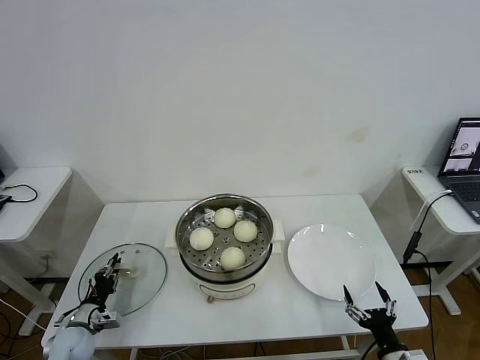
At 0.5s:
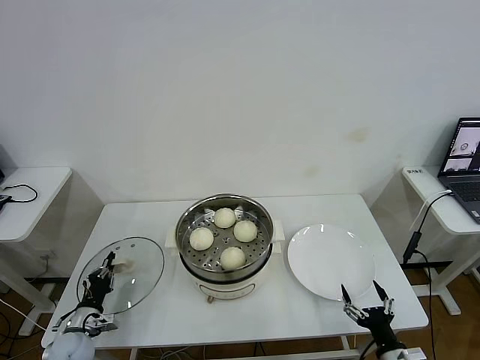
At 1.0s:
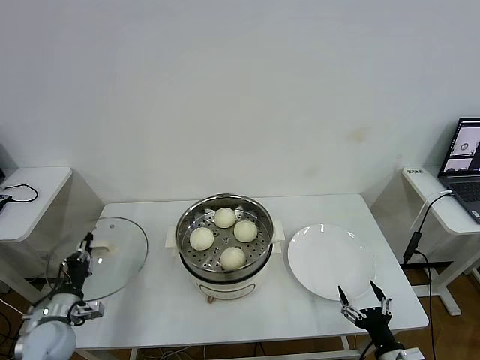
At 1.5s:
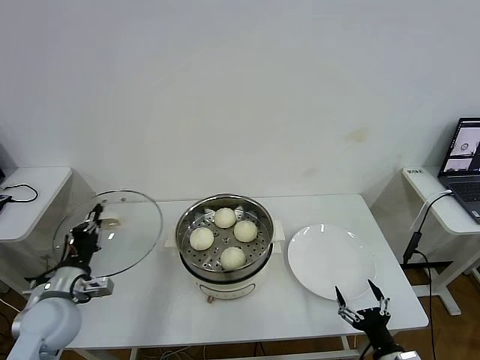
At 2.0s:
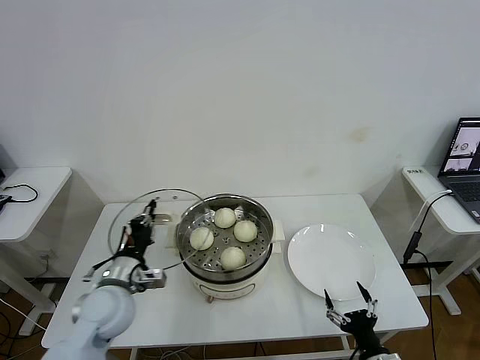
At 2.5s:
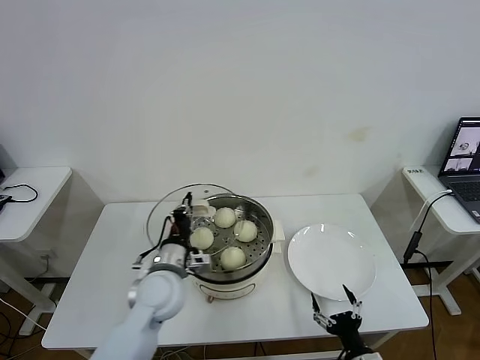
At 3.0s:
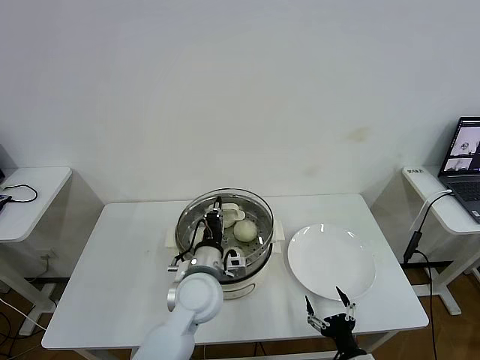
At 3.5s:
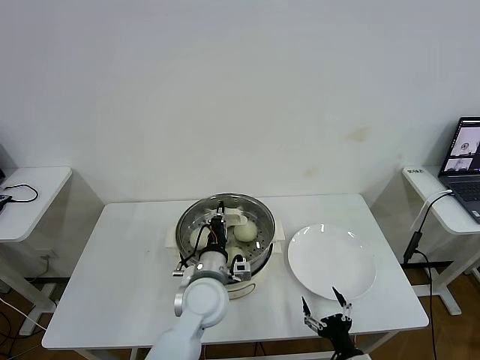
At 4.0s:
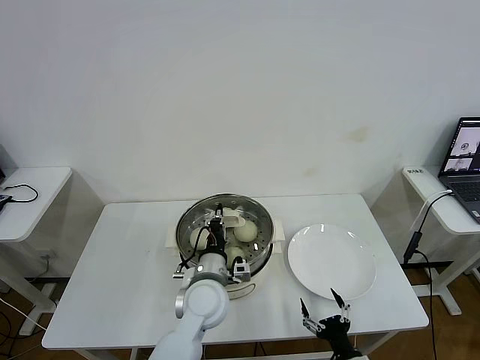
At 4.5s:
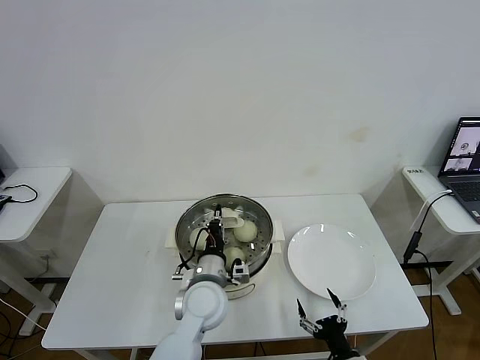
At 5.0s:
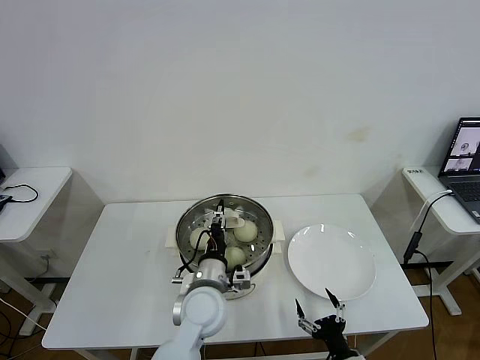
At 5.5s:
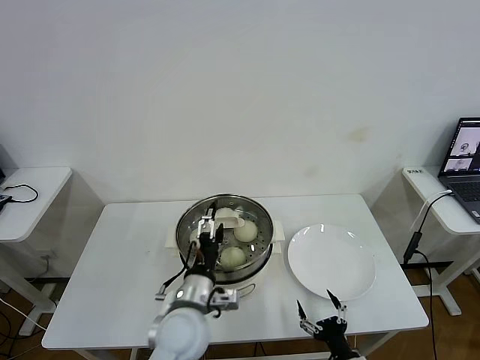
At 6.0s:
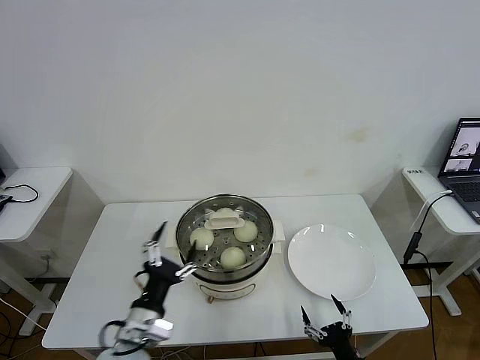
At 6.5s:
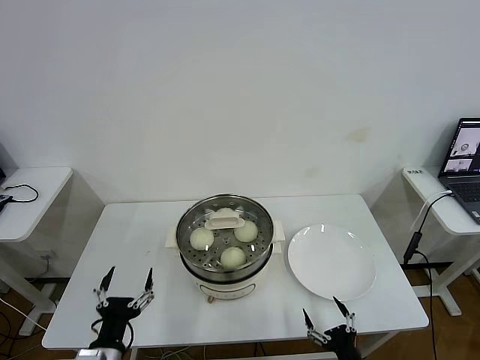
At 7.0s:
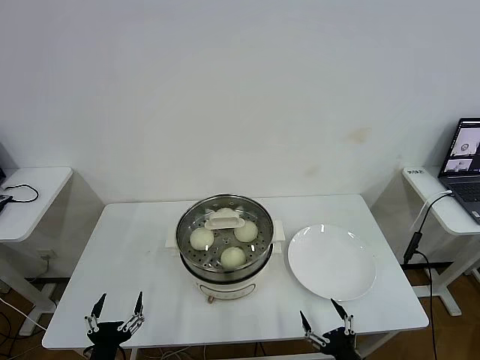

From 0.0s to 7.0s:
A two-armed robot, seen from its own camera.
Task of the whole recording: take steamed baozi put them in steamer then cover it.
Step, from 0.5s to 5.0s: Place the pot lid on the steamer with left gripper.
From 0.0s to 2.0s: The left gripper travels upward and to the right by roughly 25 cm.
From 2.0s to 3.5s: The left gripper moves to the right, some 20 cm.
From 3.5s to 5.0s: The left gripper opens up.
From 5.0s to 7.0s: The right gripper changes place by some 5 cm. The left gripper heads to the left and backward, covering about 30 cm, and opens its fingers.

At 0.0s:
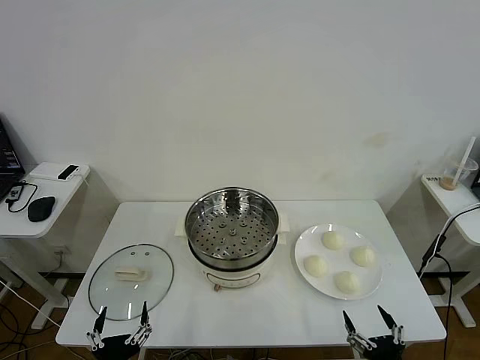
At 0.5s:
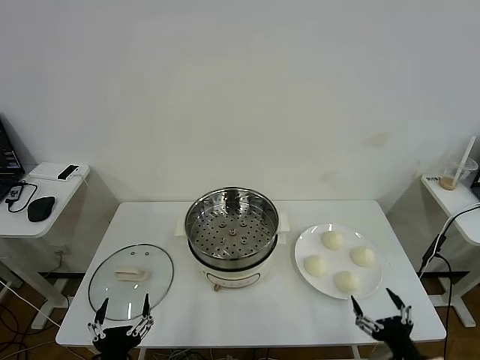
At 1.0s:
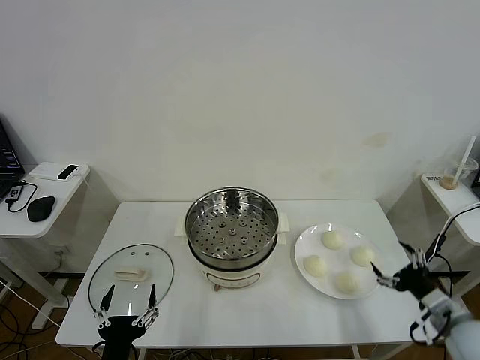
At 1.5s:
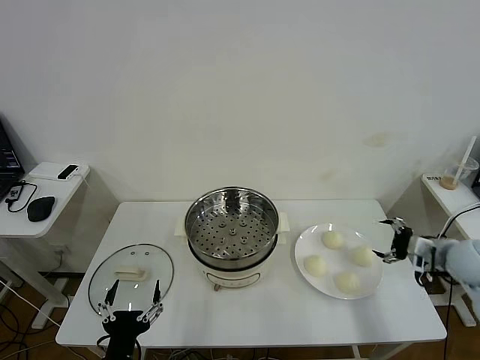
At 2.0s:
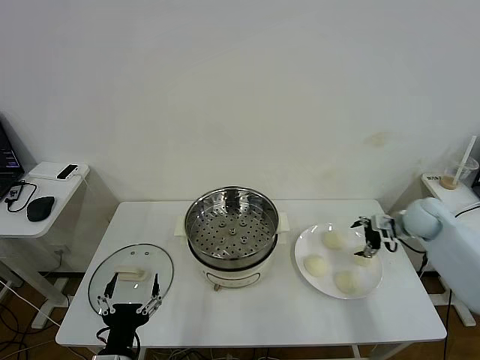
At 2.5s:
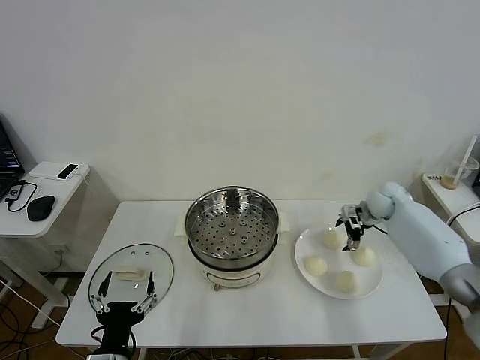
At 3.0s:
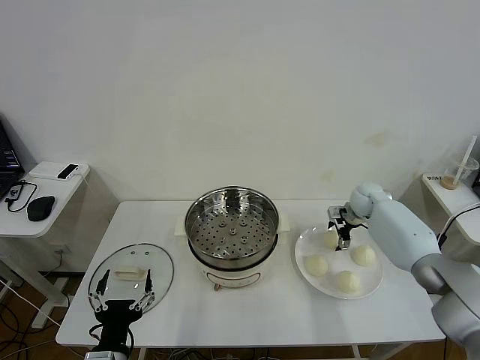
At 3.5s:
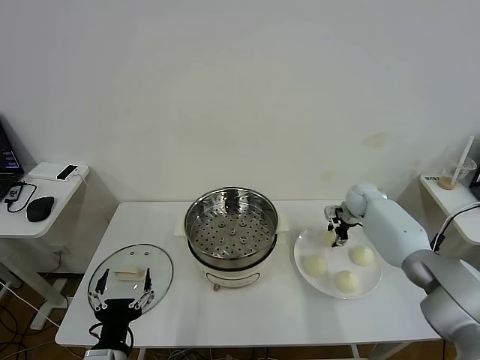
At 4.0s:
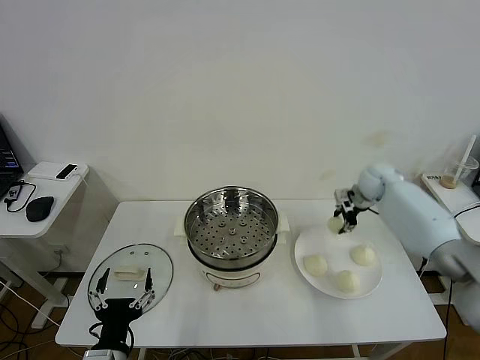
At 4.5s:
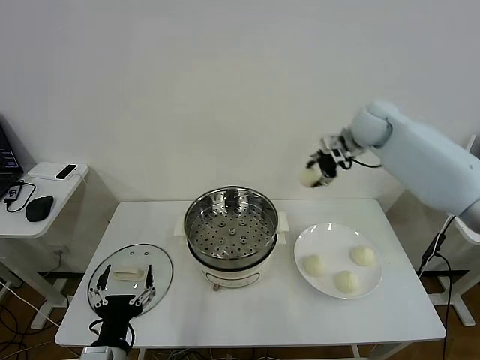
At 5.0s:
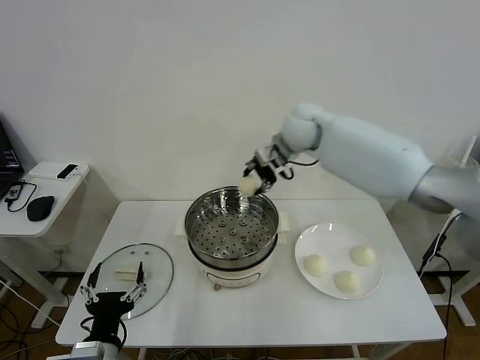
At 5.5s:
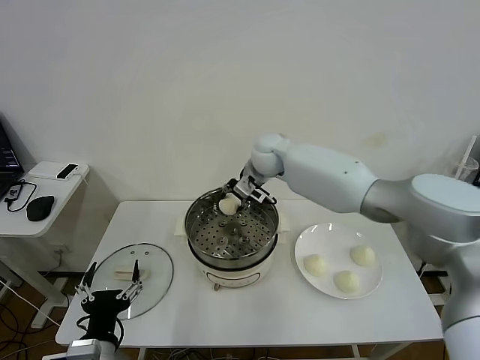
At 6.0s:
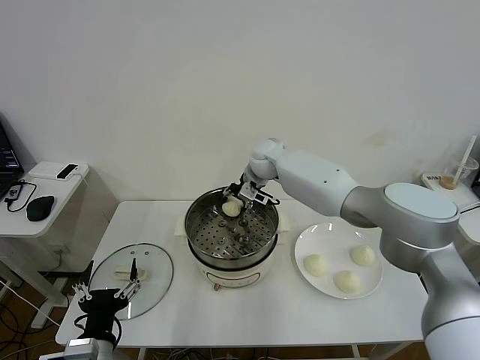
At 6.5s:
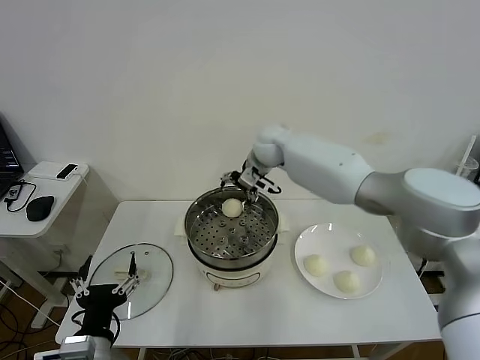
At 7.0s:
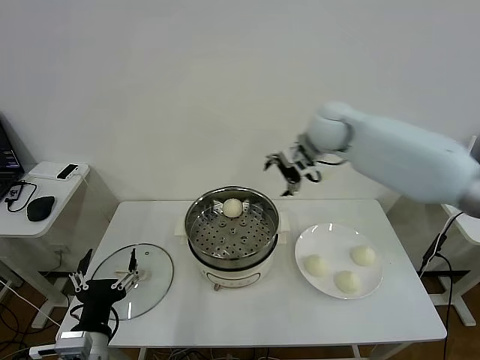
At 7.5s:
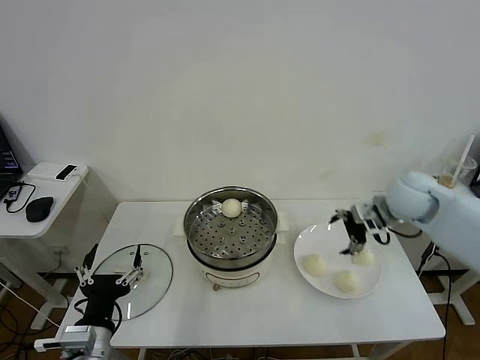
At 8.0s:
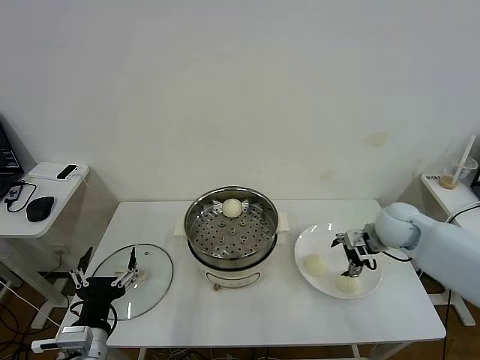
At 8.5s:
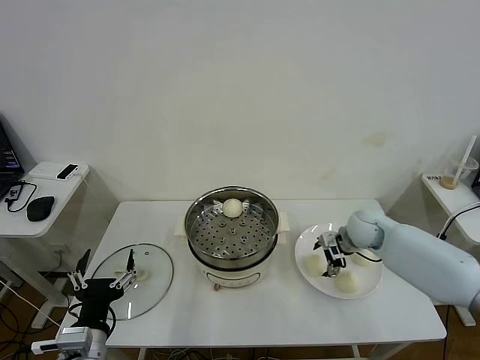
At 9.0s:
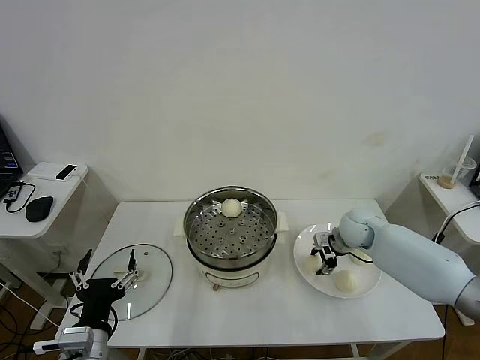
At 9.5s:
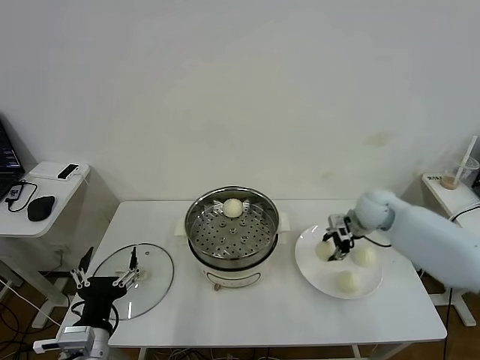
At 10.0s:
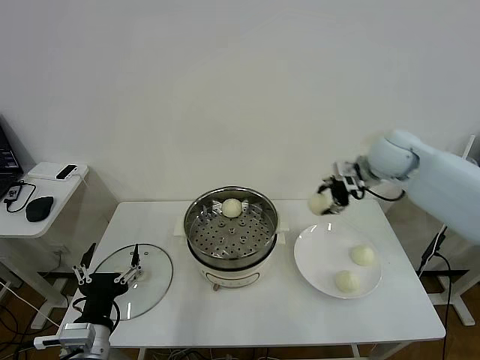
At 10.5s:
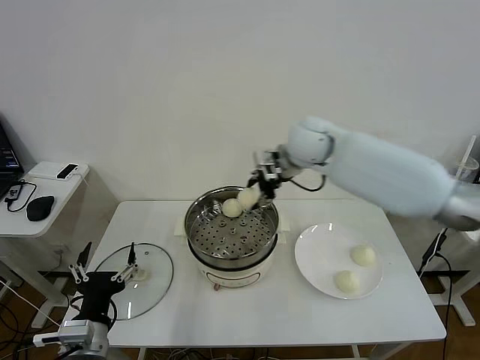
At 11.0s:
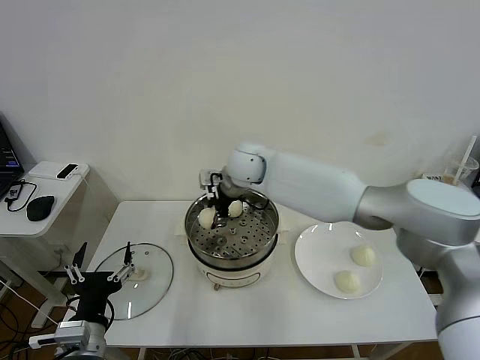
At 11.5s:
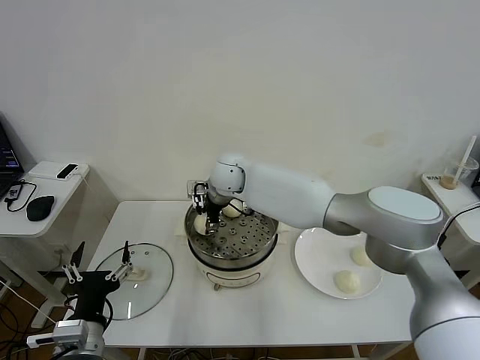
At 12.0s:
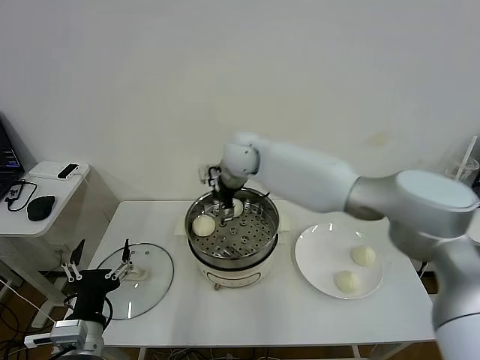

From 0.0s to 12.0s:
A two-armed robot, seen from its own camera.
Task of the whole recording: take steamed baozi put them in steamer then cover it.
Step, from 0.0s to 3.5s: Grasp the baozi in the plate with right gripper.
Step, from 4.0s to 6.0s: Place the baozi on the steamer with right gripper.
Step, from 6.5s to 9.0s: Grasp the baozi in the plate with right gripper.
Step, from 9.5s to 11.5s: Place the baozi on the steamer with right gripper.
From 2.0s to 4.0s: The right gripper travels forward, to the left and upward by approximately 15 cm, and closes.
From 4.0s to 6.0s: The right gripper goes approximately 30 cm to the left.
From 6.0s to 8.0s: The right gripper shifts approximately 30 cm to the right and backward, and opens up.
From 8.0s to 10.0s: The right gripper travels upward by some 15 cm, and closes its fingers.
From 10.0s to 12.0s: The right gripper is displaced to the left by roughly 25 cm, and opens up.

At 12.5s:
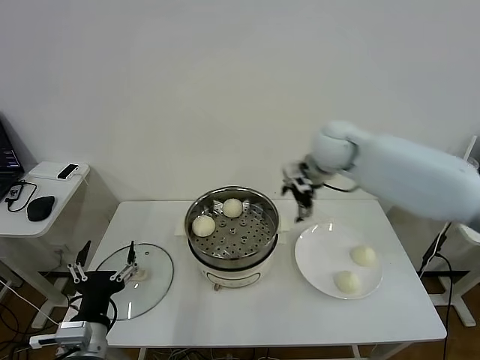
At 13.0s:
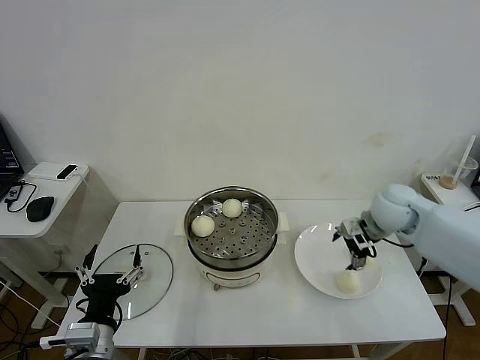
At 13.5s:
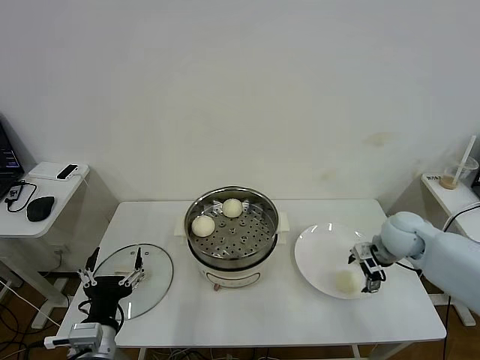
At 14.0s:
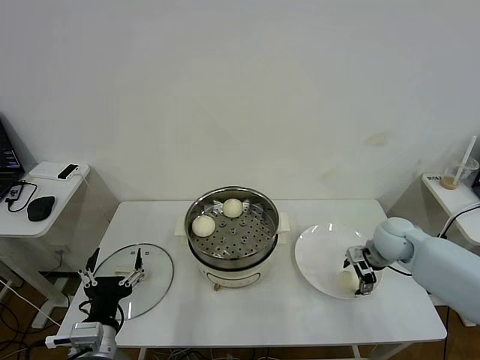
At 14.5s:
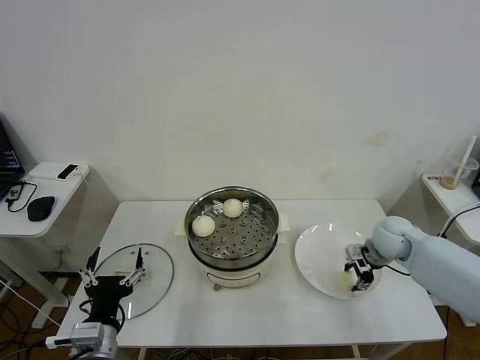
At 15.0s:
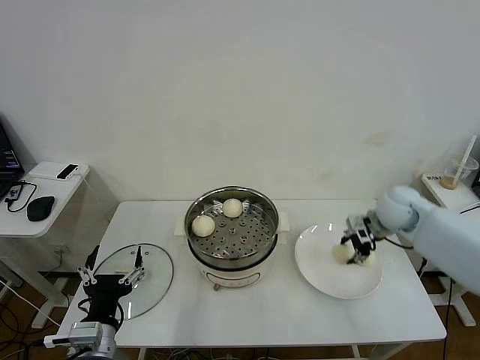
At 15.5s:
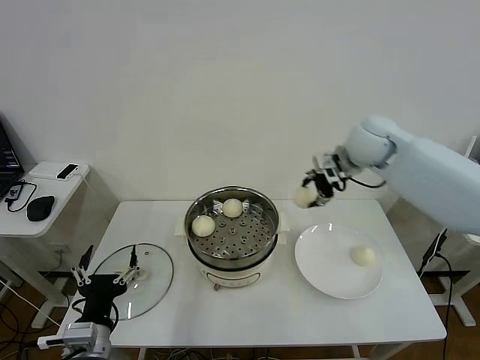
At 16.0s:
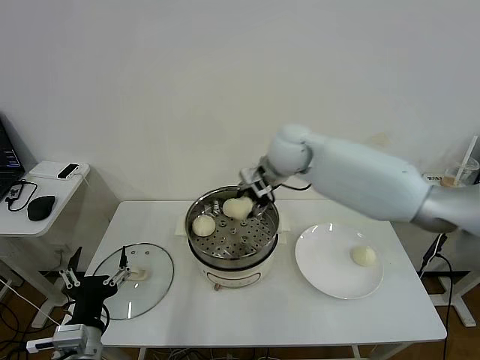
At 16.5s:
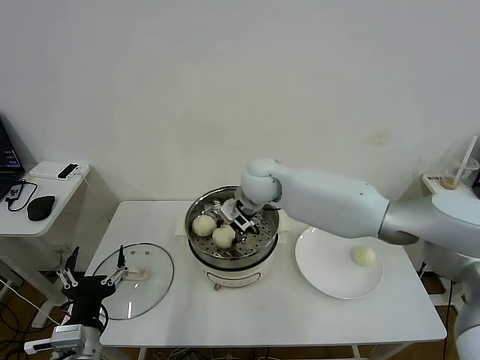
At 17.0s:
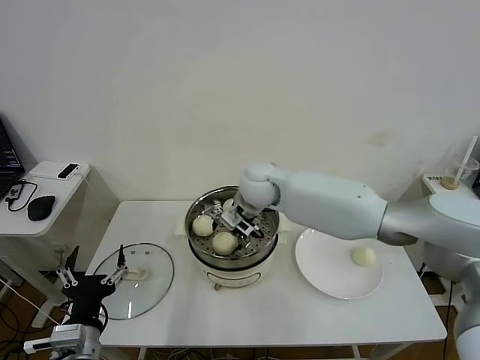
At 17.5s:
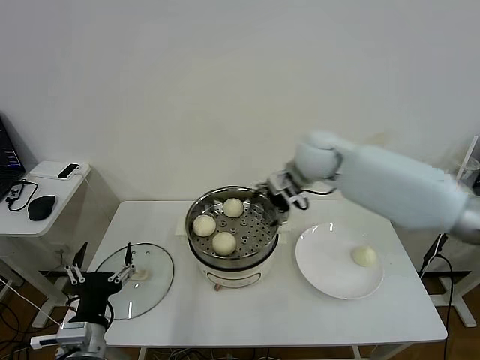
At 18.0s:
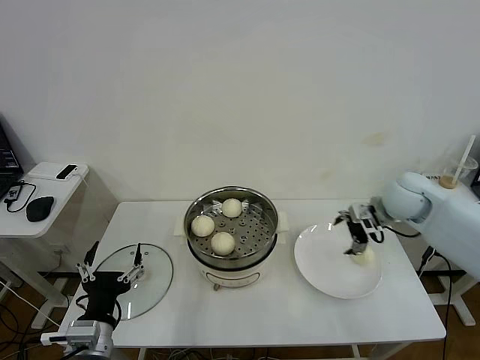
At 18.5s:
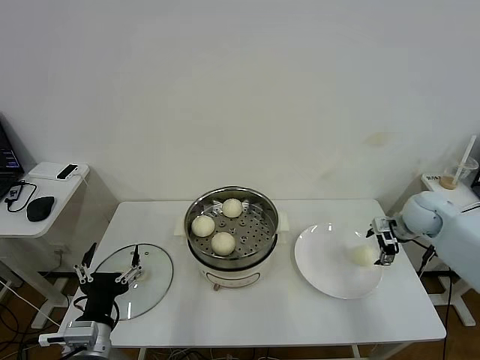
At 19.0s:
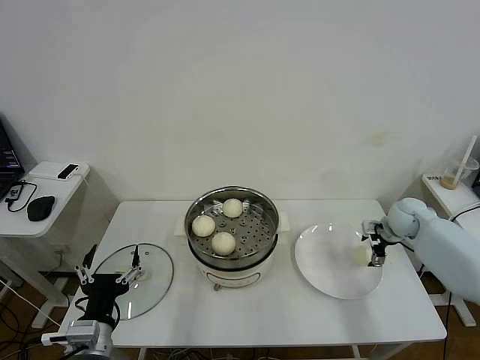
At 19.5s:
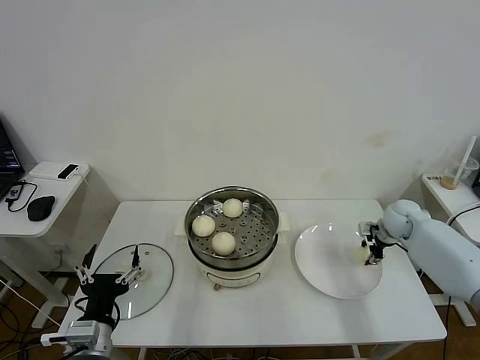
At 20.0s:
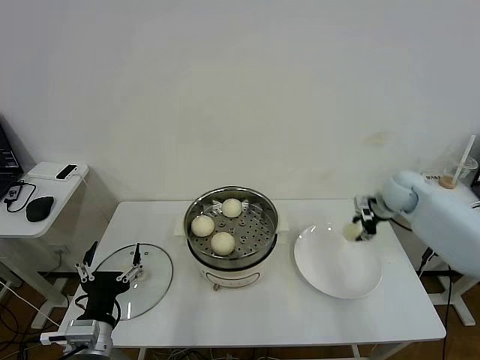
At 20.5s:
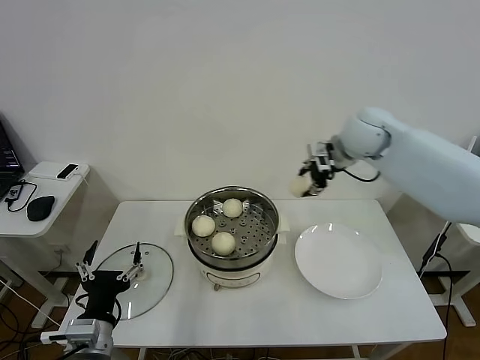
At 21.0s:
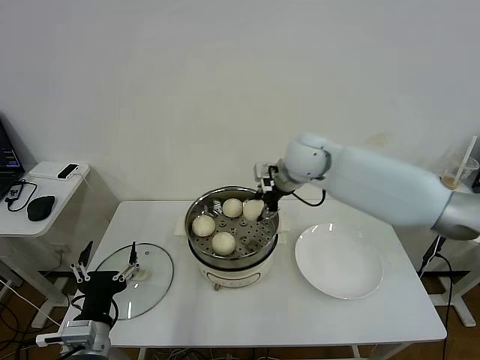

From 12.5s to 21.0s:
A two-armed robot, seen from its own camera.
Task of the whole recording: take steamed baozi put them in steamer then cover it.
Step, from 12.5s to 14.5s: Grasp the baozi in the plate with right gripper.
Step, from 15.0s to 17.0s: Place the baozi on the steamer with right gripper.
Step, from 17.5s to 19.5s: Grasp the baozi in the plate with right gripper.
From 12.5s to 14.5s: The right gripper travels downward and to the right by about 25 cm, and closes.
From 14.5s to 16.5s: The right gripper travels to the left by about 30 cm.
From 16.5s to 19.0s: The right gripper heads to the right, covering about 40 cm, and opens.
From 19.0s to 21.0s: The right gripper goes approximately 35 cm to the left and upward, and closes its fingers.
